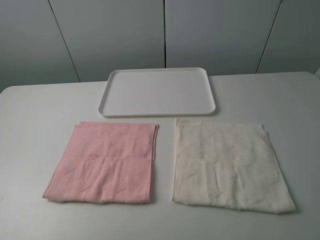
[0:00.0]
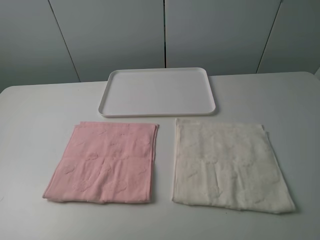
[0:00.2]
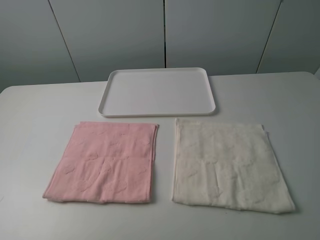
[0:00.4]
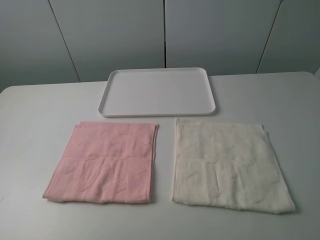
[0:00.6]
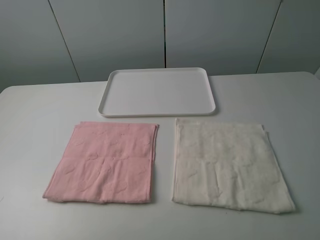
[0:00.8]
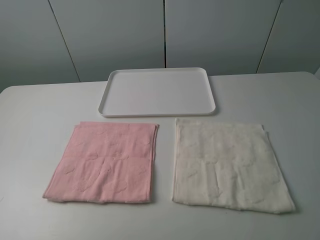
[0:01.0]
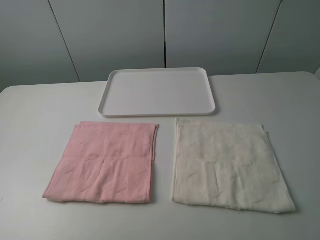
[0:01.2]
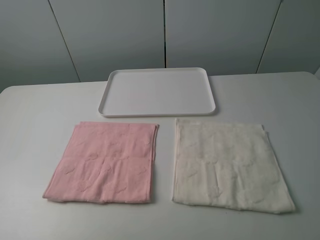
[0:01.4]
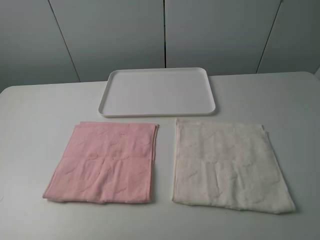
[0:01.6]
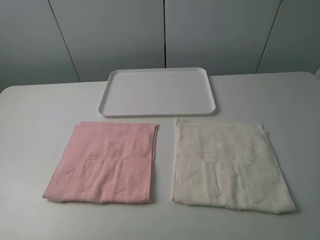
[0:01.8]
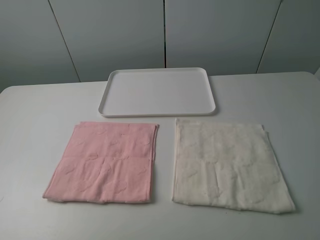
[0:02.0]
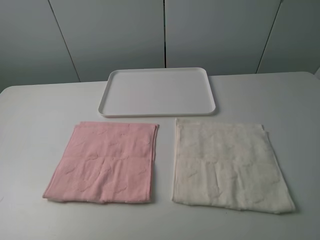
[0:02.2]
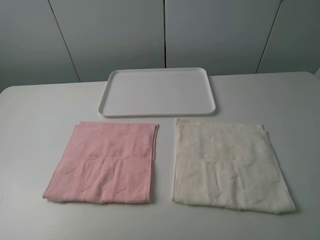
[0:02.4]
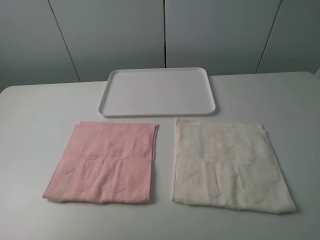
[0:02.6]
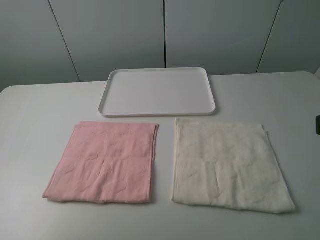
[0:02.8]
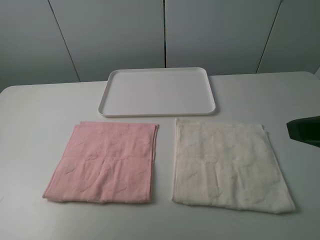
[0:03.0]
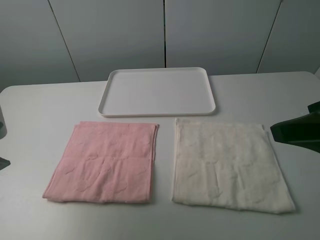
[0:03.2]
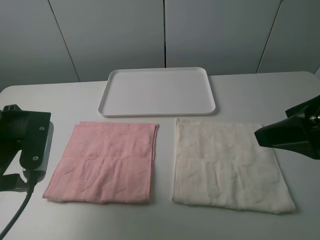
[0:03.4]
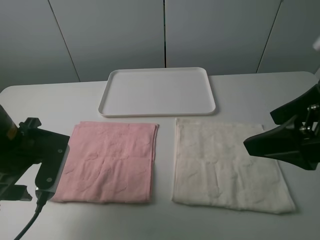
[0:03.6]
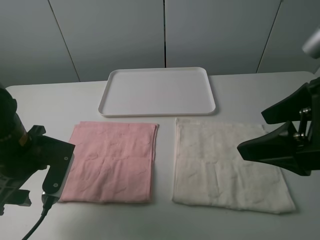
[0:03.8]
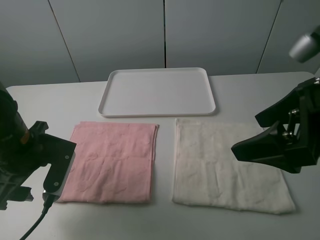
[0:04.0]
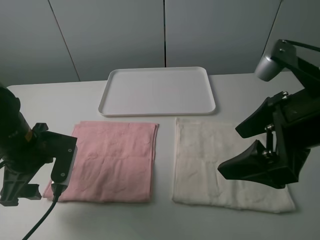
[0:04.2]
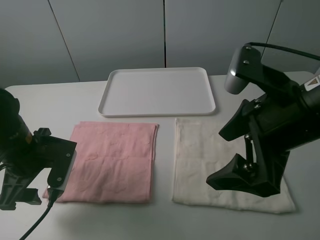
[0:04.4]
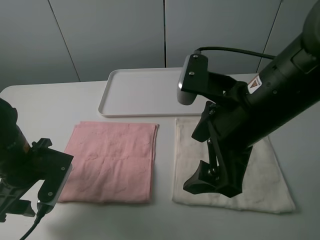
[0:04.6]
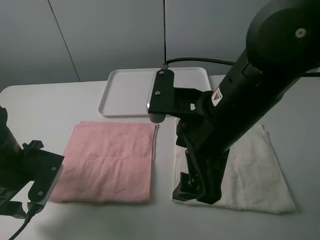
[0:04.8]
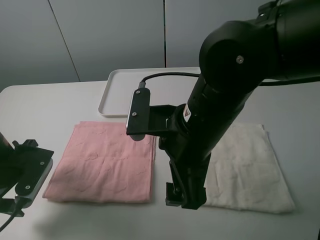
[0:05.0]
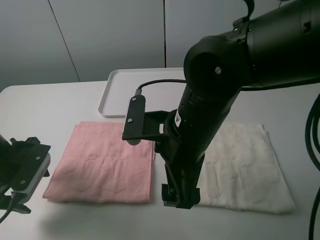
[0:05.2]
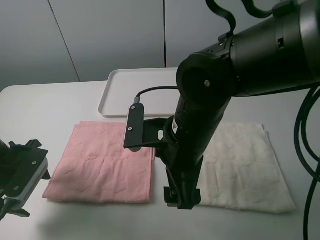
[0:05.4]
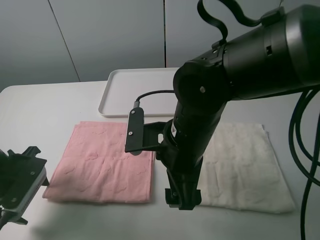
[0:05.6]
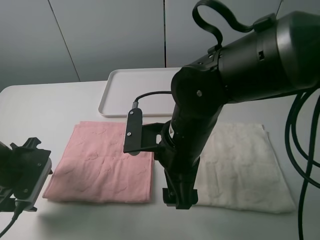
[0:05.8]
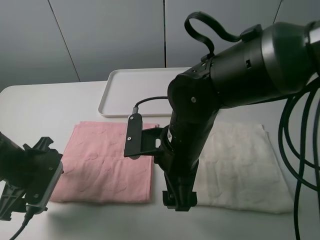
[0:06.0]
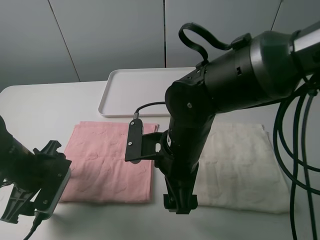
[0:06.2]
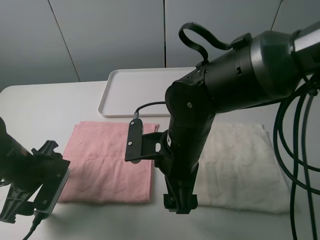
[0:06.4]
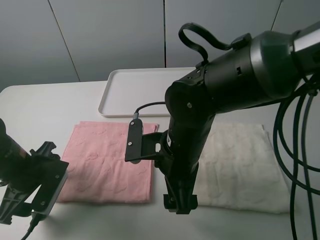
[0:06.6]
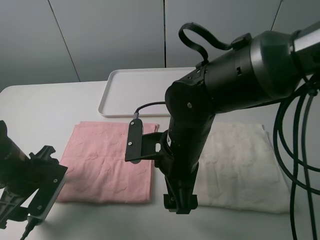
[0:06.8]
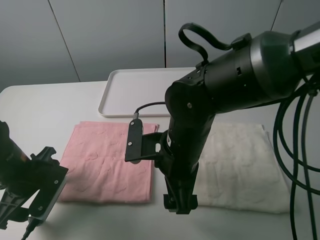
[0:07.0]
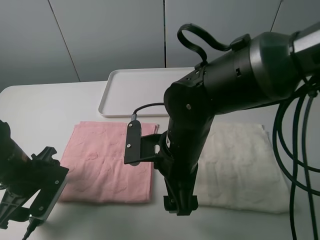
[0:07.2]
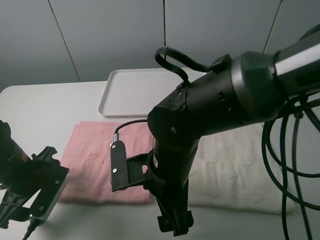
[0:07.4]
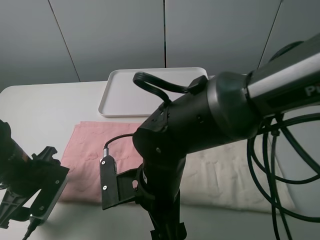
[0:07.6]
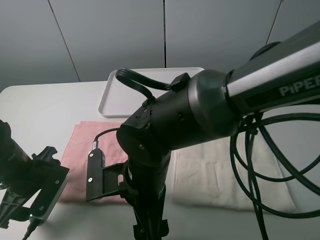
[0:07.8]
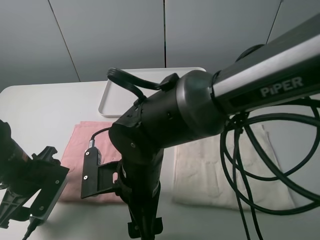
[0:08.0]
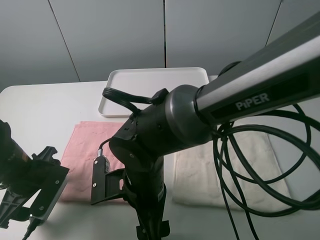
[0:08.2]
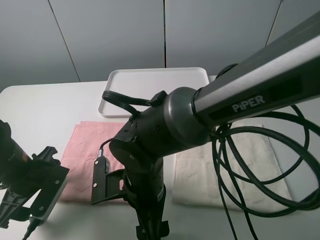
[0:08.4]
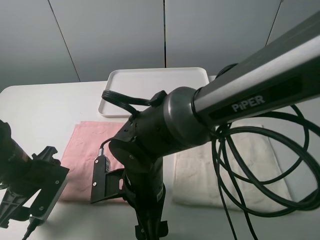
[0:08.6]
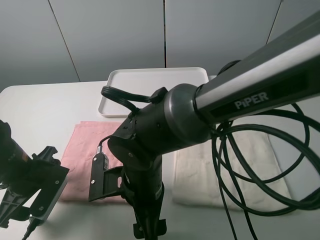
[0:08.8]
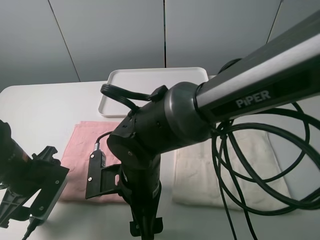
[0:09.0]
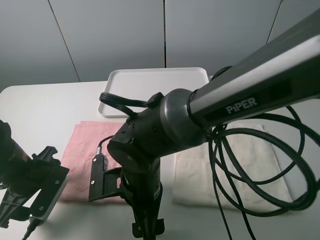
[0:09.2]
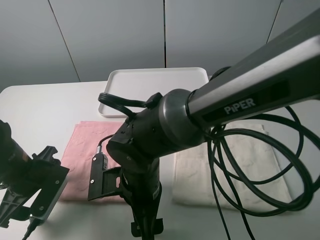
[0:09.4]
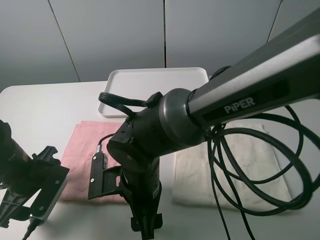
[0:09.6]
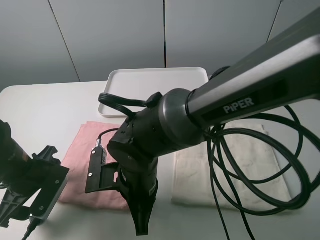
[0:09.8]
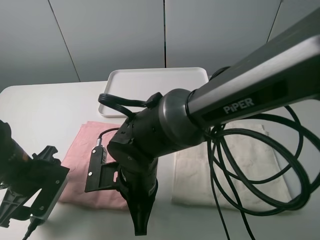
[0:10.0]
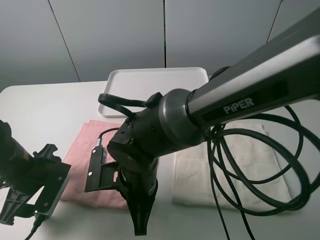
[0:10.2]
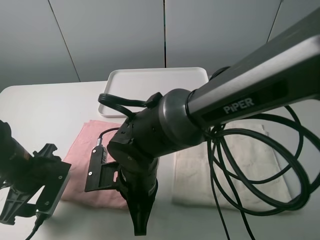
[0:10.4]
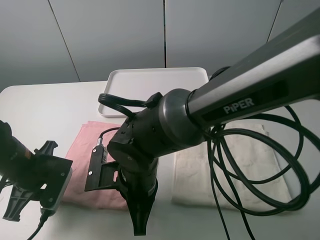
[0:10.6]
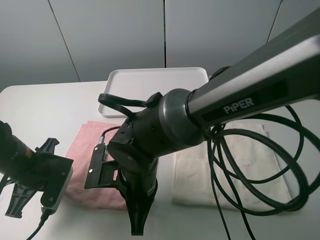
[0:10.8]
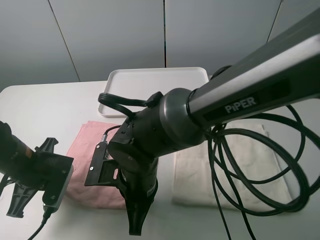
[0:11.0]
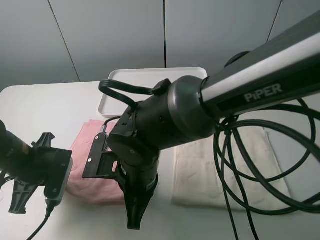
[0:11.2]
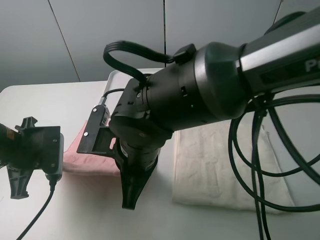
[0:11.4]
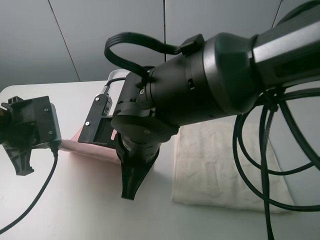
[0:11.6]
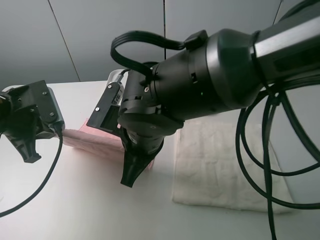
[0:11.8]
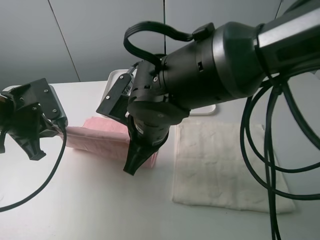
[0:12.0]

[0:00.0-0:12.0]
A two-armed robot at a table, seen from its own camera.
Task of the whole recording: fold one of the towels by two grippers and place it on the tray,then fold another towel by two grippers and place it on the folded towel.
Step, 0:00.0 to 0:10.8: Grasp the pink towel with the left gripper.
0:00.0 to 0:01.6: The two grippers keep their place.
0:01.6 to 0:03.0: The two grippers go roughly 10 cm forward.
0:03.0 to 0:04.4: The right gripper moves to the left, approximately 10 cm. The left gripper shifts some 15 cm downward, to the right and forward.
0:04.4 to 0:06.0: The right gripper moves to the left and downward, approximately 15 cm.
0:06.0 to 0:07.6: The right gripper moves approximately 5 cm.
0:09.0 to 0:10.4: The right gripper closes up.
0:10.4 to 0:12.0: The left gripper is displaced upward by about 10 cm, and closes; the right gripper heads upward and forward, covering roughly 10 cm.

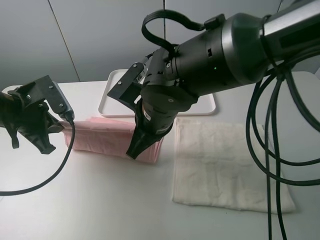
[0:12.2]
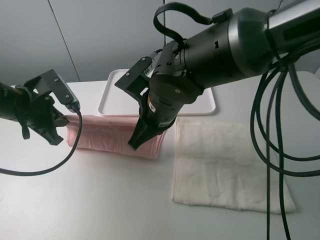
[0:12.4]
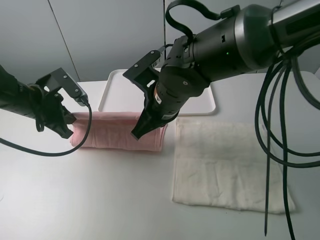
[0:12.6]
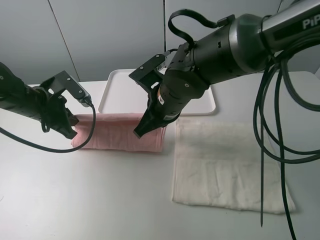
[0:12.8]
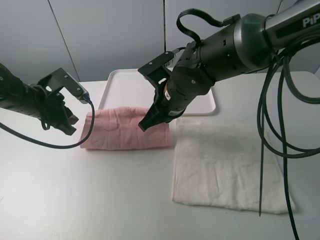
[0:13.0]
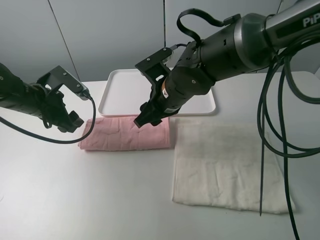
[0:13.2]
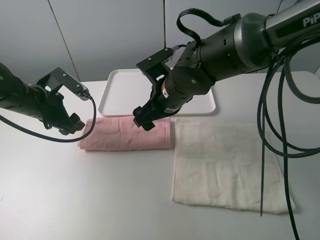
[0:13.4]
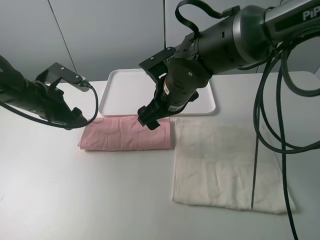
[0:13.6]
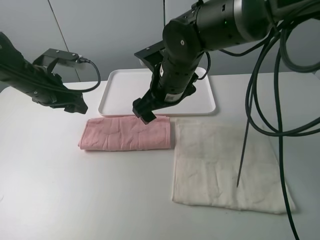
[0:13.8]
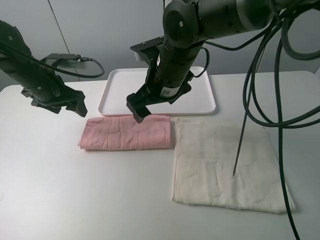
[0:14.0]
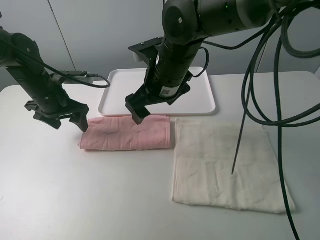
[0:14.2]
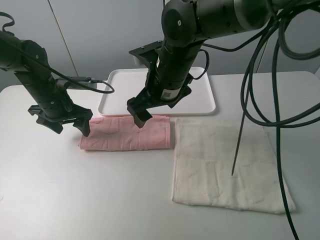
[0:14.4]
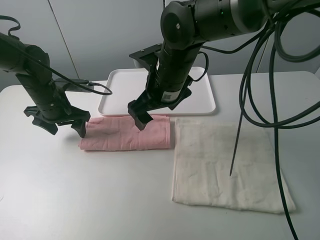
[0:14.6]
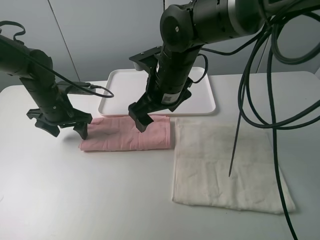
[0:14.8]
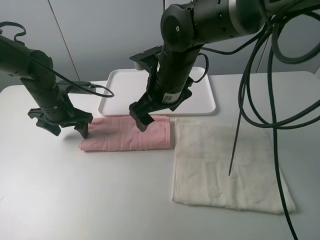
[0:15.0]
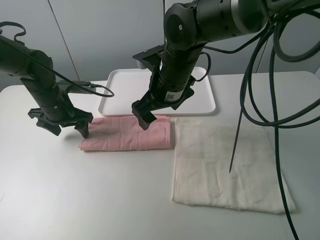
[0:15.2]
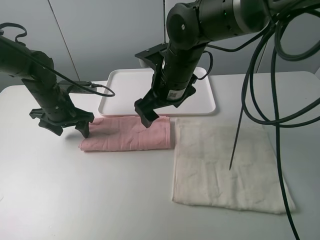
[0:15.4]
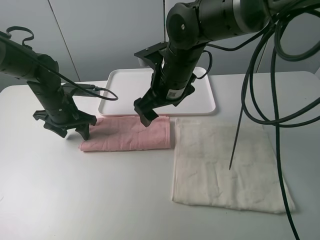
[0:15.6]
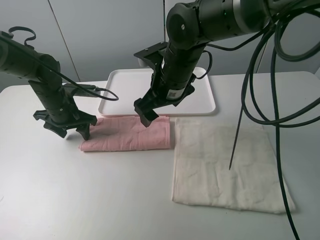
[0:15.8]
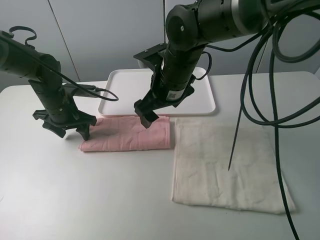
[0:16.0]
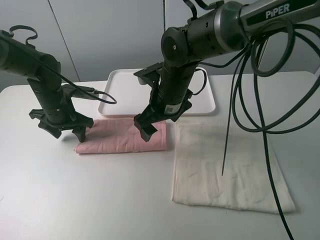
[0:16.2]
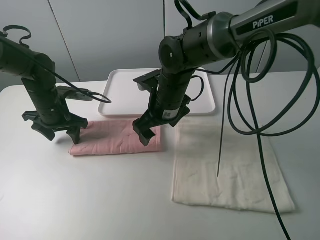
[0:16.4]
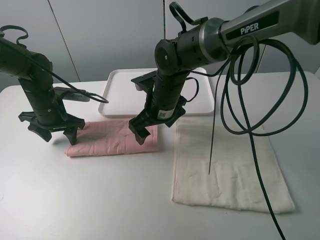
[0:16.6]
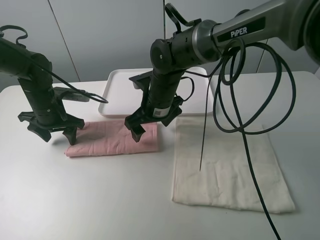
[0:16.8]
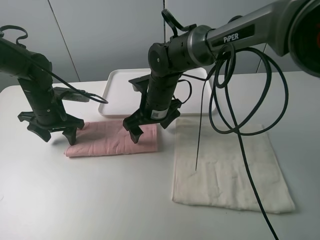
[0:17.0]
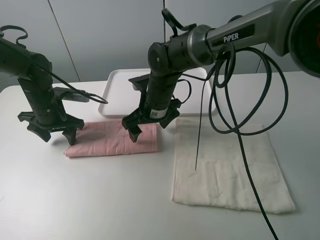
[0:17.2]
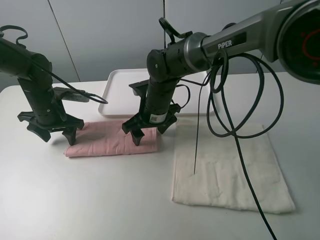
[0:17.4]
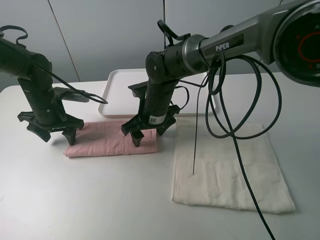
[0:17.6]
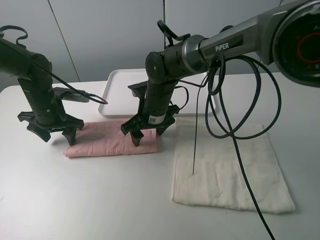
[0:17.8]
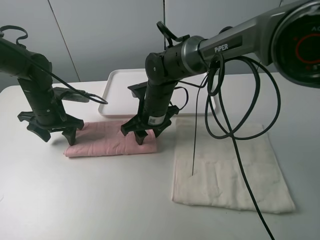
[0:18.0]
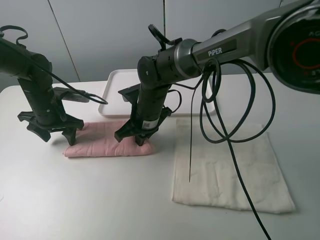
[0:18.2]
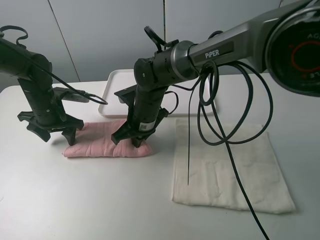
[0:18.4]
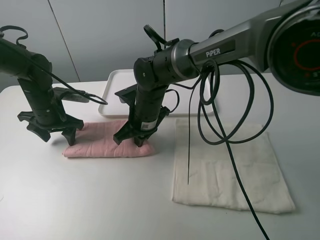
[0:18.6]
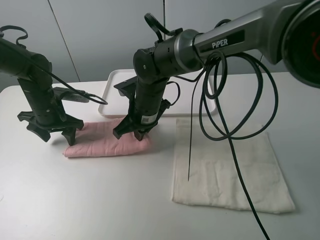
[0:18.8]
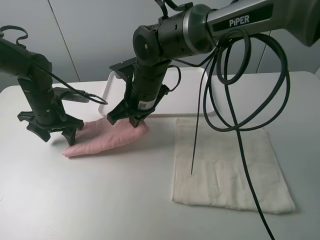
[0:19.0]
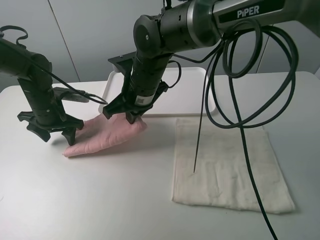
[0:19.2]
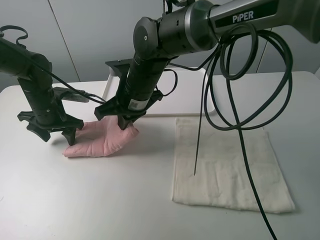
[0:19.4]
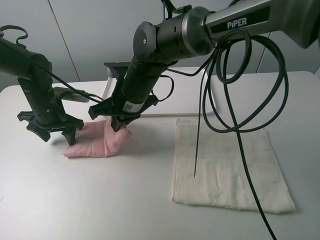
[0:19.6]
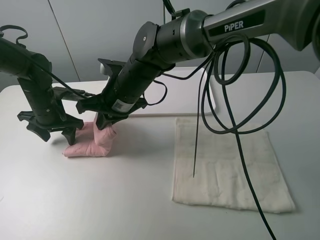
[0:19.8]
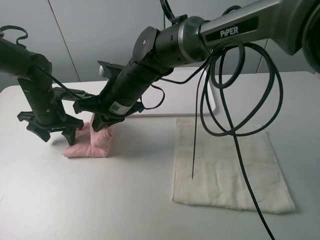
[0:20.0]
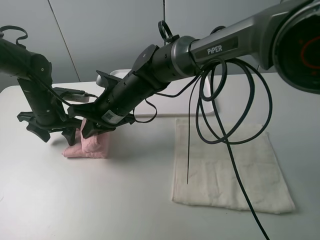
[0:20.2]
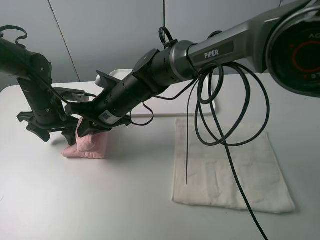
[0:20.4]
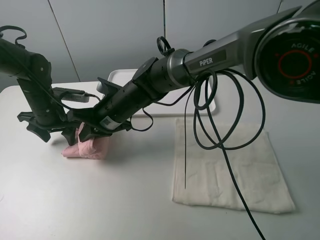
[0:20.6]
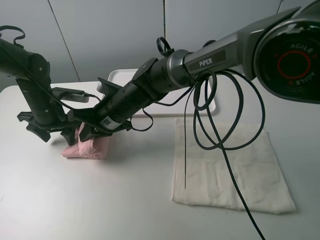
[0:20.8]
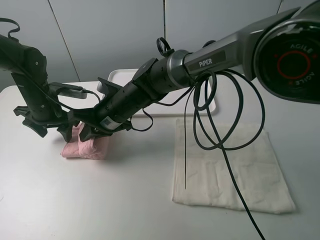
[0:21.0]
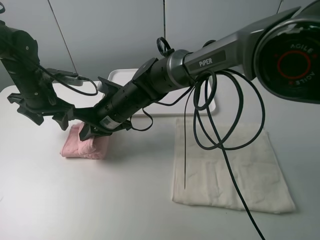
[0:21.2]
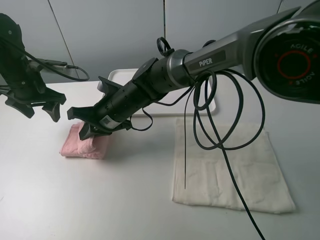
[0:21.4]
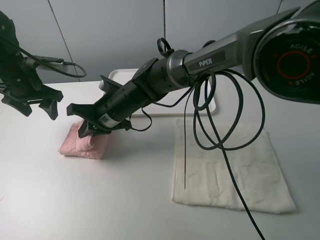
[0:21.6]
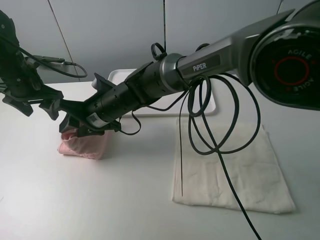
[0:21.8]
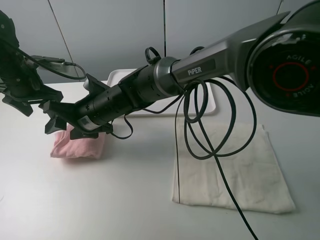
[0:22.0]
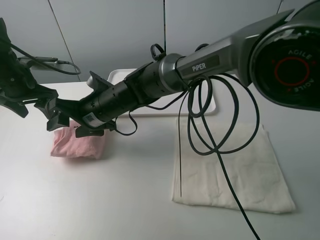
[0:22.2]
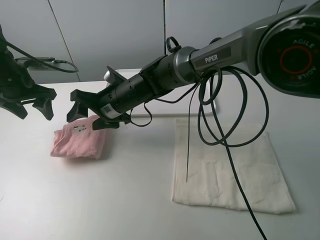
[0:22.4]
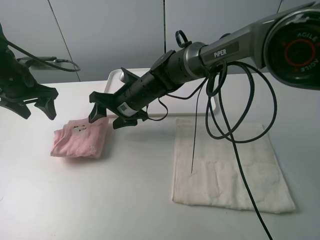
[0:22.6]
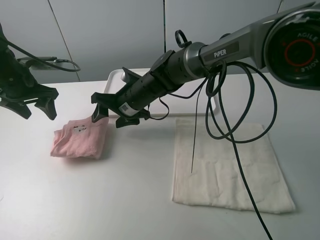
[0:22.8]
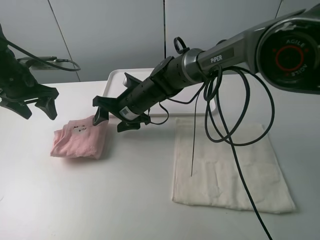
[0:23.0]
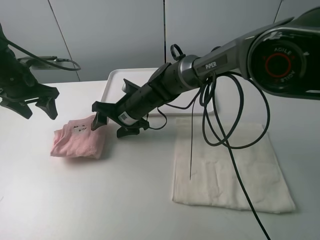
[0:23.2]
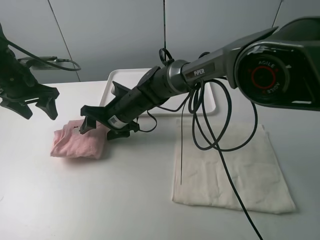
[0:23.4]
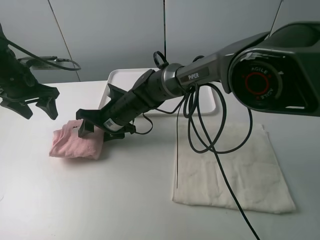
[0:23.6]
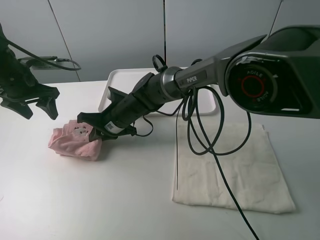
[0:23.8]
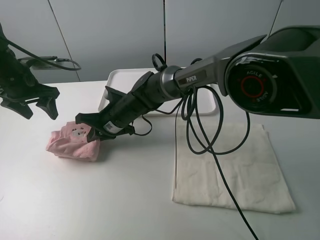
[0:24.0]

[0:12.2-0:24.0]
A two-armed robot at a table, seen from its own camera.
Task of the whole recording: fold one of the towels by two grippers and place it on the tray,then fold another towel by two grippers and place it on the folded towel.
Step, 0:13.4 to 0:15.2: Press the pink towel with the left gripper.
Step, 0:15.4 to 0:18.2: Grasp the pink towel with the right gripper.
Step, 0:18.4 to 0:22.0: Fold the pink towel from right to left with right gripper.
Step, 0:22.2 to 0:23.8: Grasp the pink towel with the right gripper.
0:12.2 to 0:13.6: Both grippers move forward, some 5 cm. The left gripper opens up. Meanwhile the right gripper opens its fingers.
0:13.6 to 0:15.2: The left gripper shifts by some 5 cm.
0:15.2 to 0:16.6: The right gripper goes approximately 5 cm downward.
0:16.6 to 0:18.2: The right gripper closes up.
0:18.2 to 0:19.6: The right gripper shifts about 5 cm upward.
0:19.6 to 0:21.0: The right gripper heads downward, covering about 5 cm.
0:21.0 to 0:22.6: The right gripper shifts by roughly 5 cm, and opens; the left gripper shifts about 5 cm upward.
0:22.6 to 0:24.0: The right gripper moves some 5 cm, and closes its fingers.
